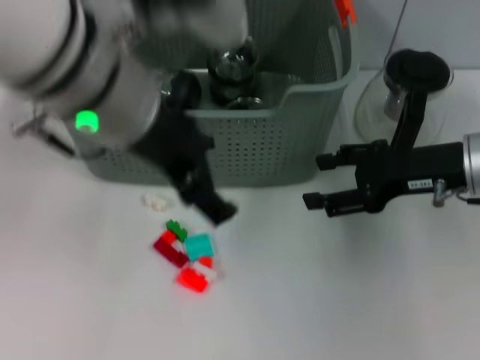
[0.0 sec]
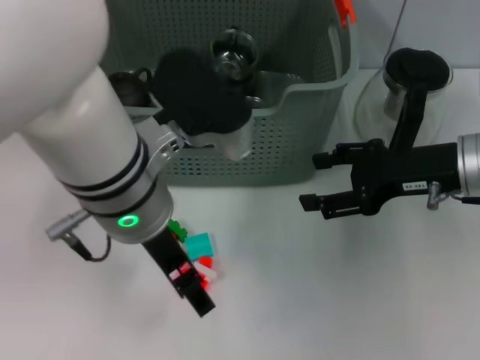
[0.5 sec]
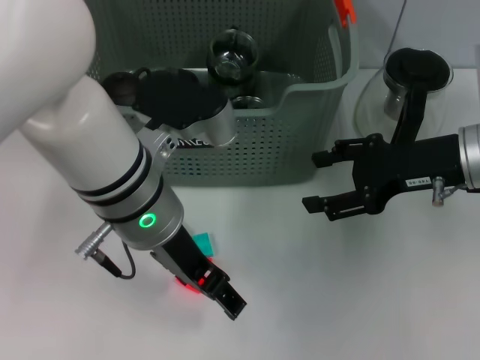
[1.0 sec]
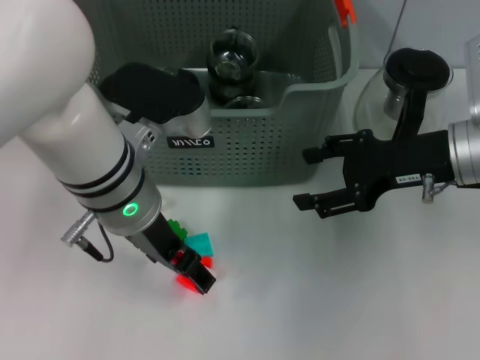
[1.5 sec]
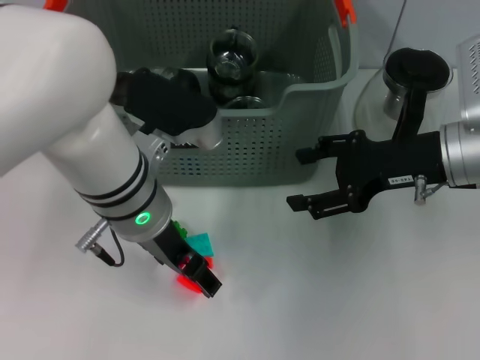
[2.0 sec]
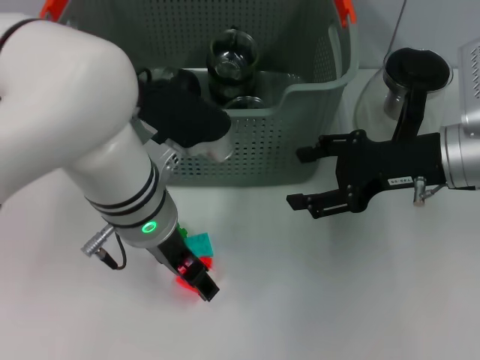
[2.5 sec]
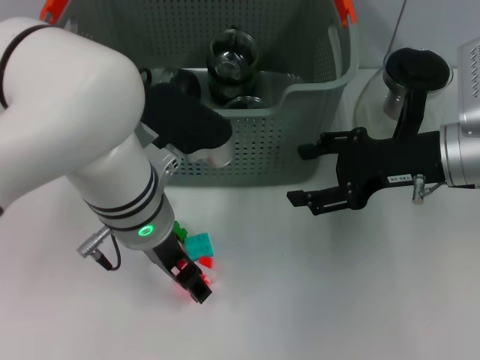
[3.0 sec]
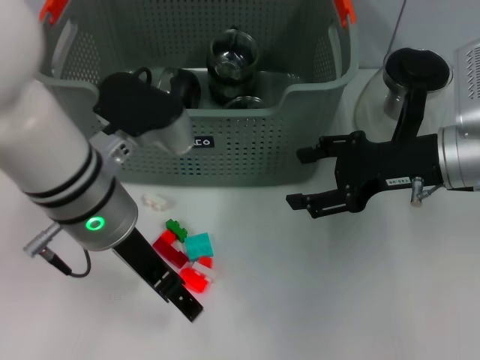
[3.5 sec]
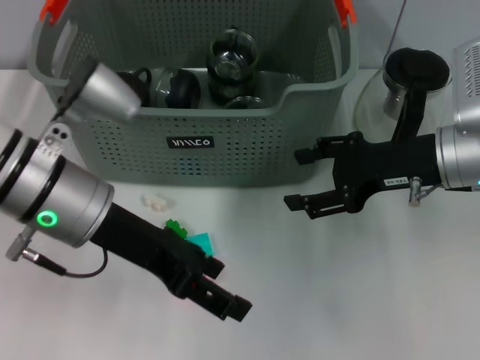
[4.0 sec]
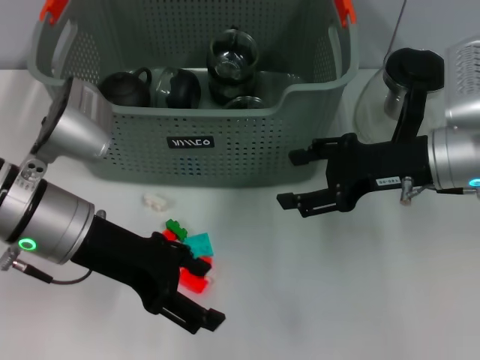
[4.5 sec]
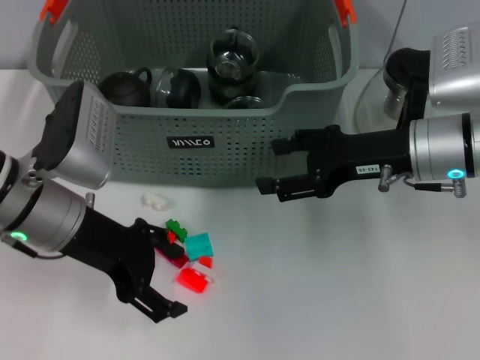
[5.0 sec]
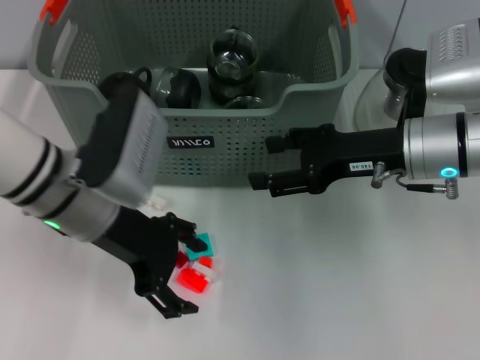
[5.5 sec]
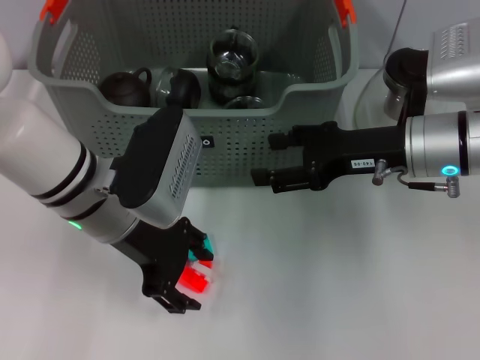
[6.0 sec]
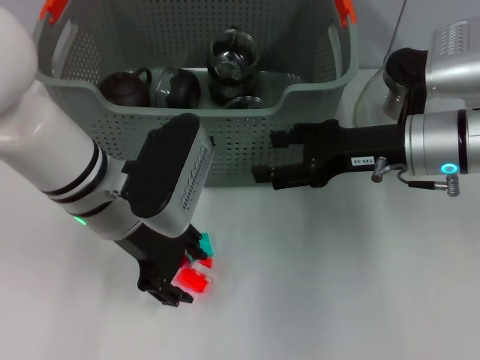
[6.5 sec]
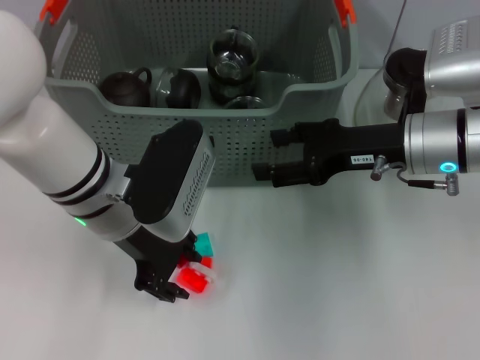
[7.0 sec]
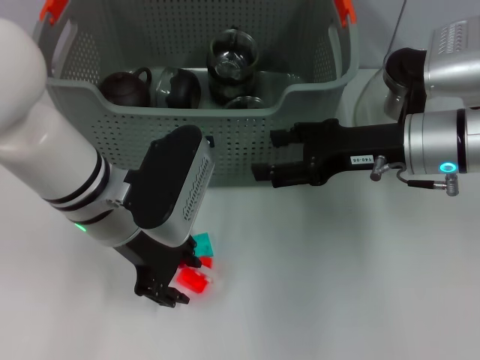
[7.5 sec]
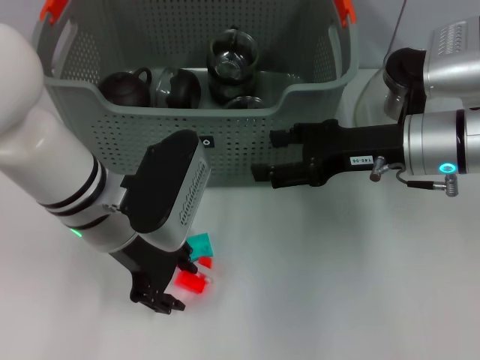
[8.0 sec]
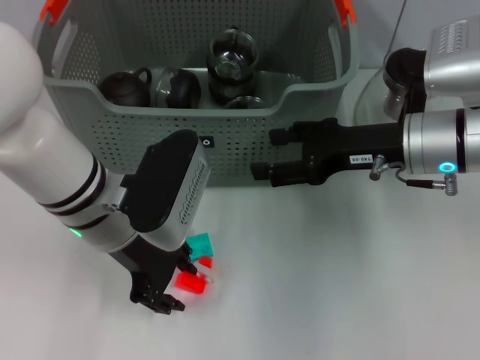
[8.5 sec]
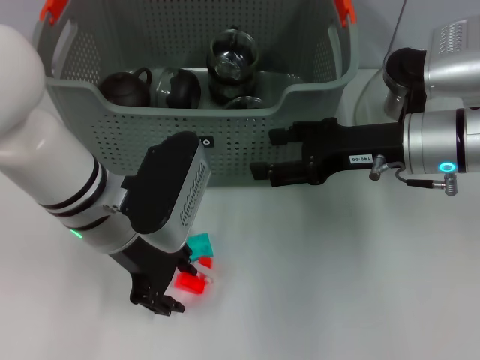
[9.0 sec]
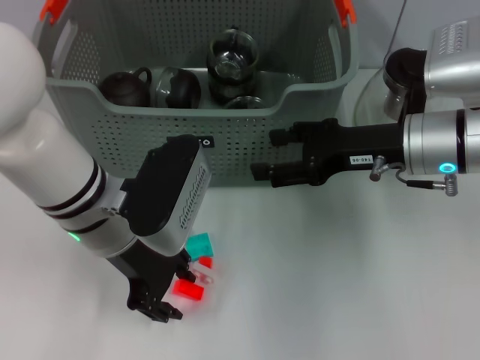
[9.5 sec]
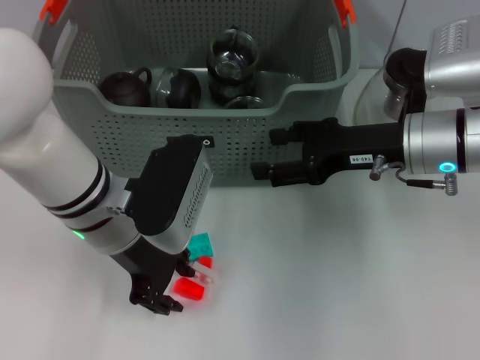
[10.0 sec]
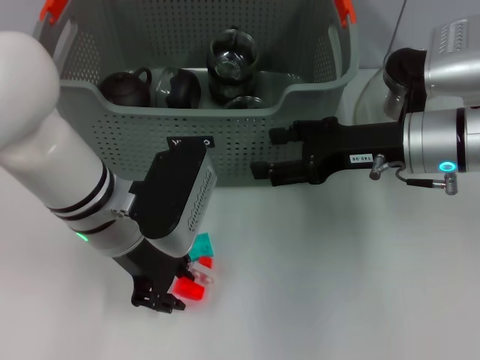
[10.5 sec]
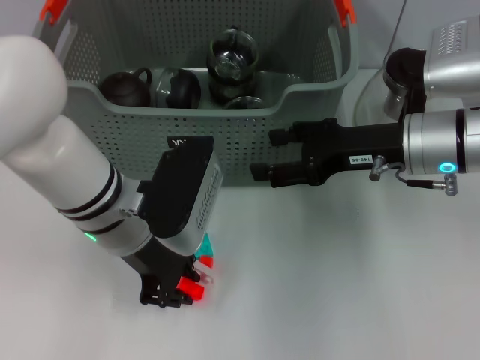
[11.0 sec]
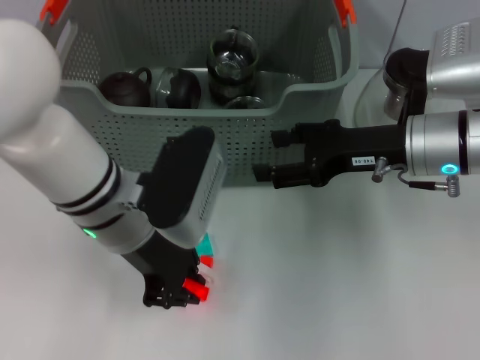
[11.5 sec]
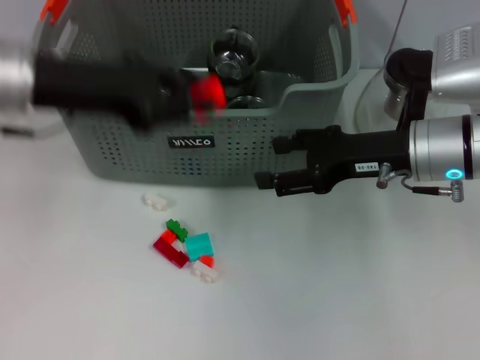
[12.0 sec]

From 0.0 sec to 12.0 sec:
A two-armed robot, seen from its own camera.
Task of the whole recording: pick up the teacup on the table and place it into the storage bin, pick up the block on the table and place it into the storage bin.
Step, from 0.0 sec to 11.0 sec: Grasp the orange block with left gripper.
From 0.0 sec to 2.0 sec: The left gripper goes some 15 cm downward.
From 2.0 sec to 4.0 sec: The left gripper is displaced to the left by about 5 cm.
From 6.0 sec to 8.0 sec: The left gripper closes its fingers.
From 8.0 sec to 10.0 sec: The two grippers keep their place.
From 10.0 sec to 12.0 sec: The left gripper shifts approximately 15 cm upward and to the left.

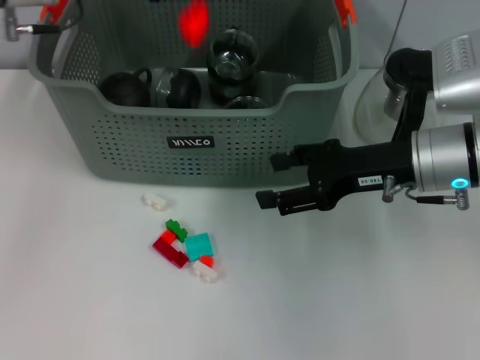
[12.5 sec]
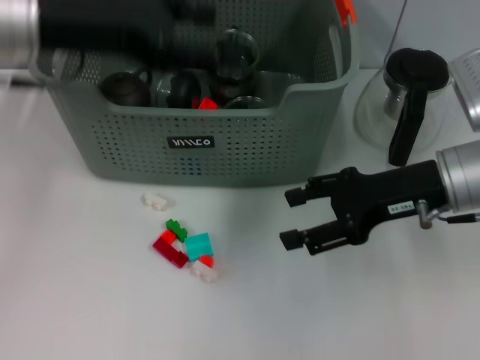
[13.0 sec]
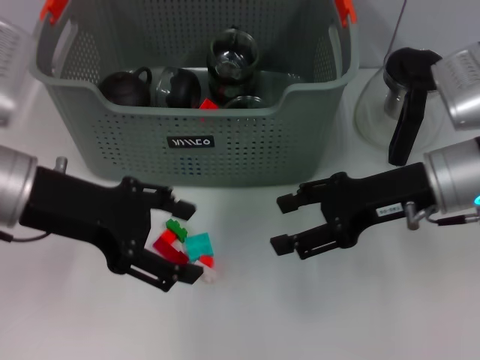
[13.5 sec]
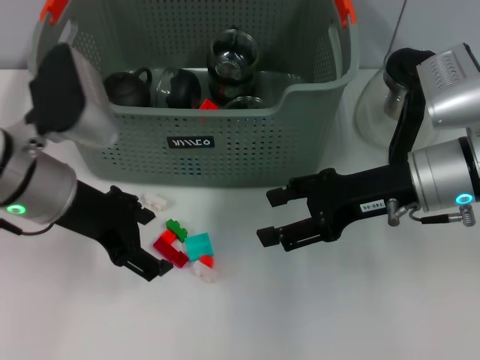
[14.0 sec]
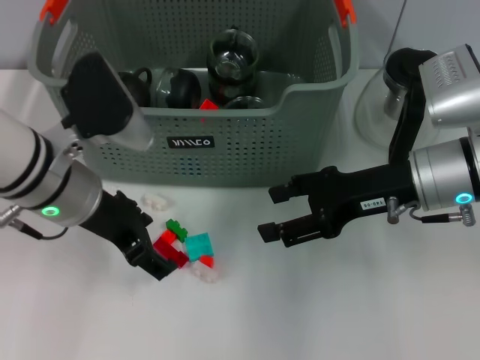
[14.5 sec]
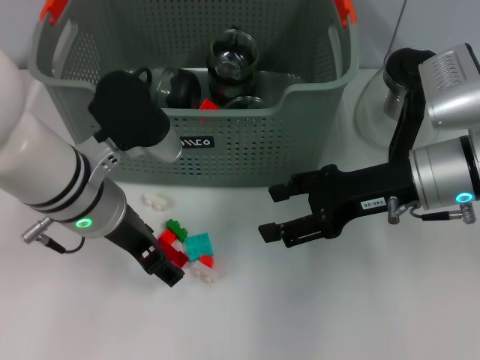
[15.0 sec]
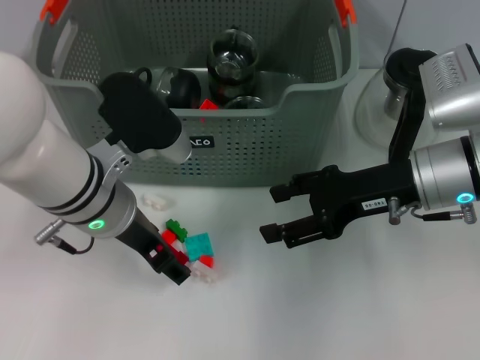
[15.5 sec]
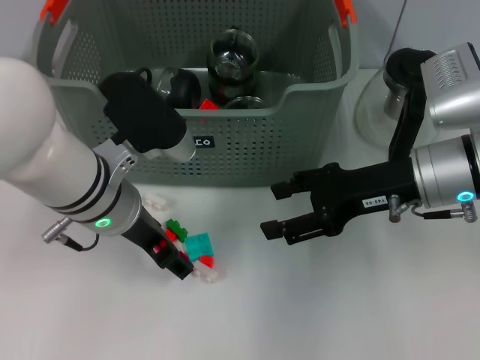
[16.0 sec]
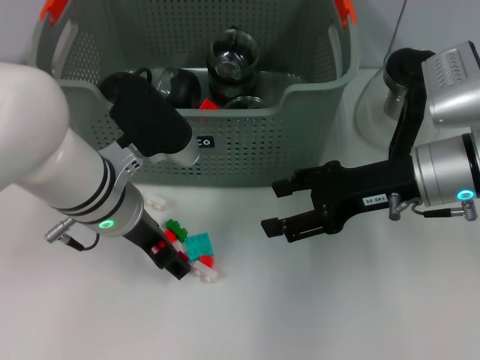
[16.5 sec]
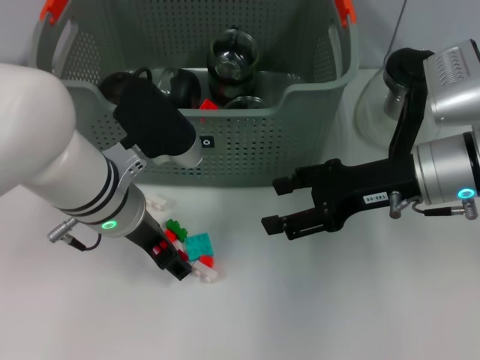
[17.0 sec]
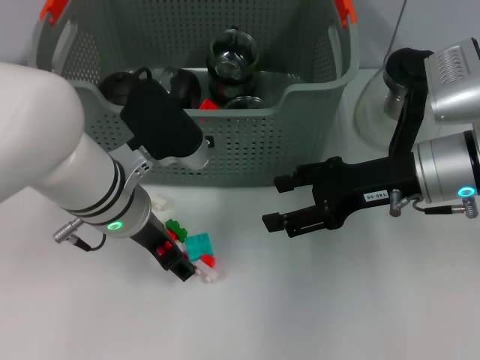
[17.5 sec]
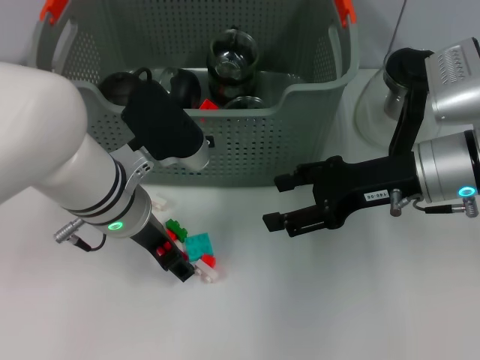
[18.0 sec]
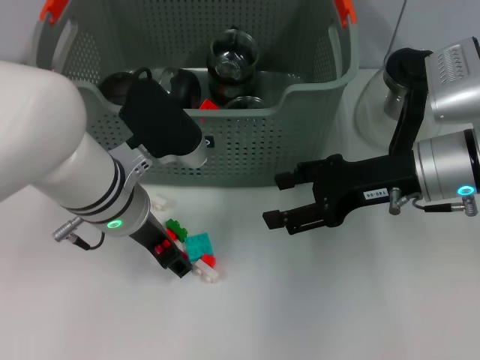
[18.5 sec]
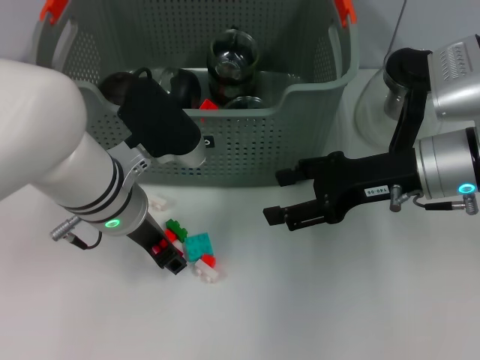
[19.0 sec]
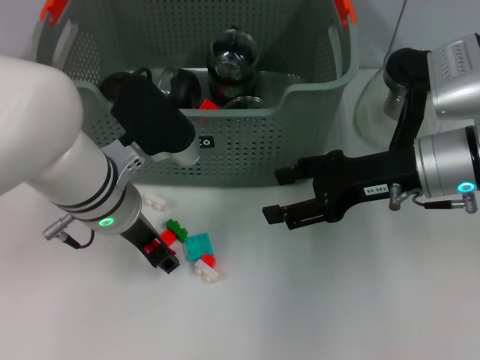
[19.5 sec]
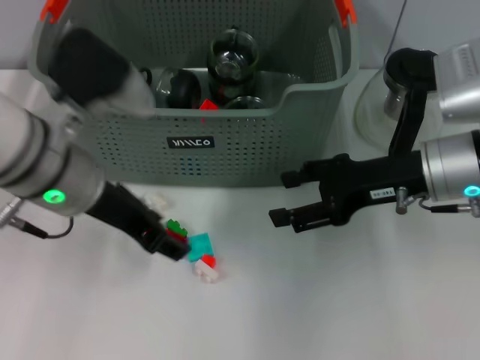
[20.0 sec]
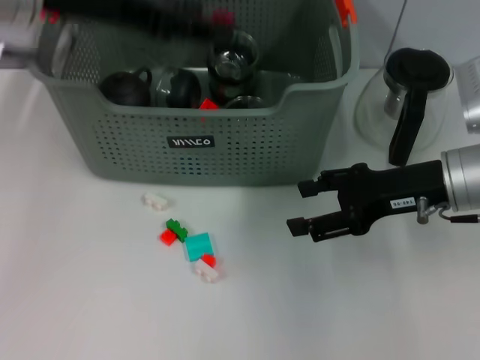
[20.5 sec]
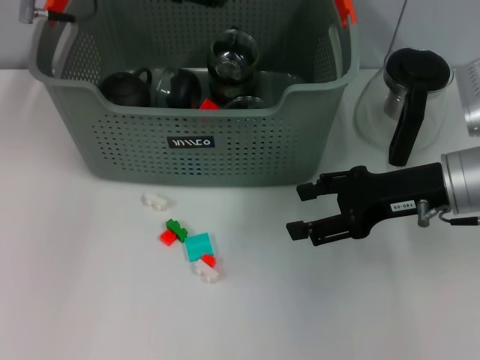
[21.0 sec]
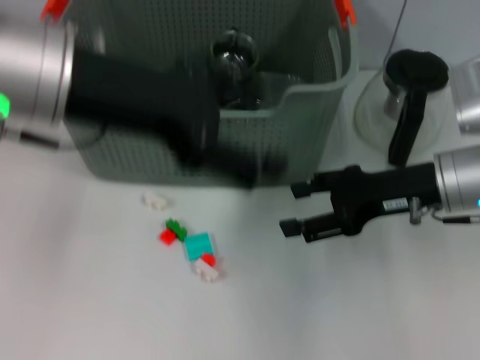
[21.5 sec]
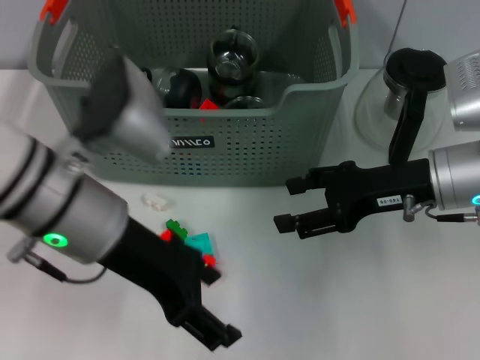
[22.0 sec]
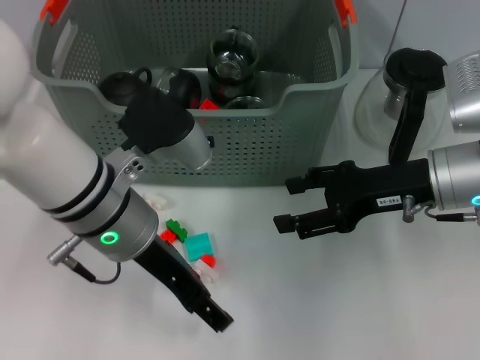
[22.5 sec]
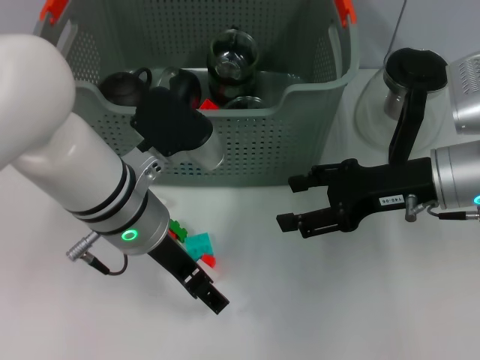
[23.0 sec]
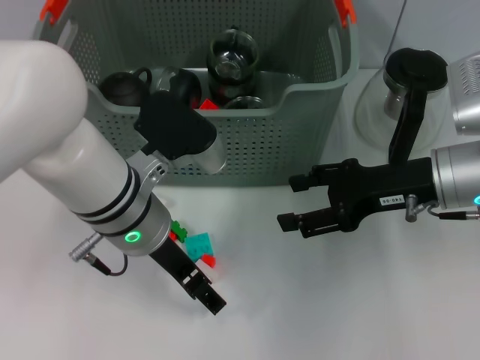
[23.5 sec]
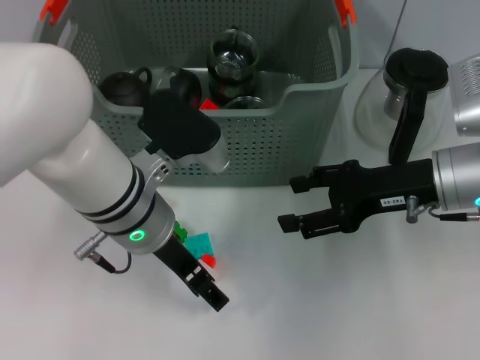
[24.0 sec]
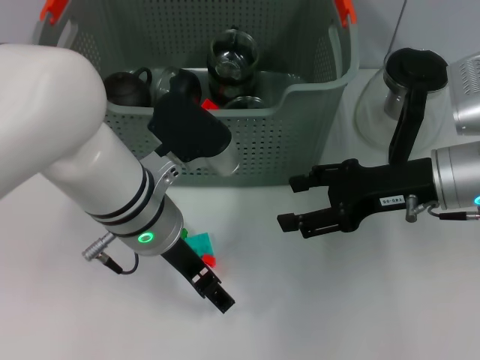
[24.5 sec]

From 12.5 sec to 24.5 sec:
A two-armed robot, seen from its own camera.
Task of the whole recording: pick up the teacup on the table and place it into the storage bin, pick up the block on the table and place it into the storage bin.
Step, from 13.0 sec to 18.5 sec: Grasp the red block with left gripper.
Step, from 19.5 sec to 21.0 sec: Place the red block in the storage box with left gripper.
From 12.5 sec to 14.5 sec: The left gripper heads backward and downward, covering some 15 cm, and opens its fingers.
From 14.5 sec to 16.5 sec: The grippers move only a little.
From 16.5 sec to 18.5 sec: Neither gripper changes place.
From 18.5 sec to 20.5 sec: The left gripper goes approximately 20 cm upward and to the left.
From 20.5 sec to 22.5 sec: The left gripper shifts about 15 cm downward, to the right and backward.
From 22.5 sec to 24.5 sec: The grippers move only a little.

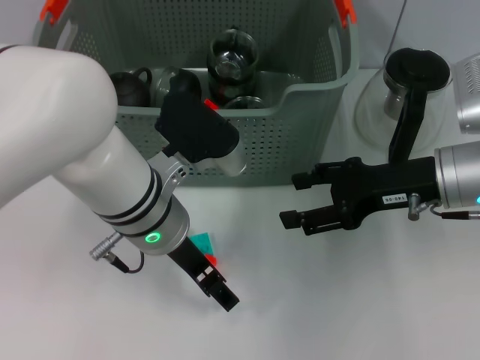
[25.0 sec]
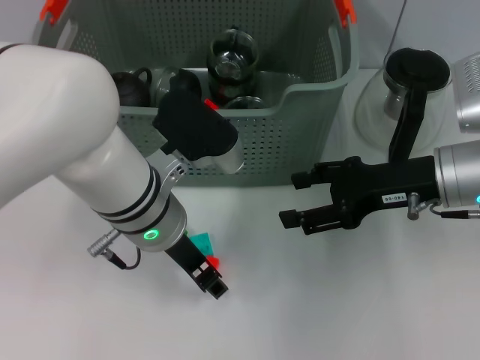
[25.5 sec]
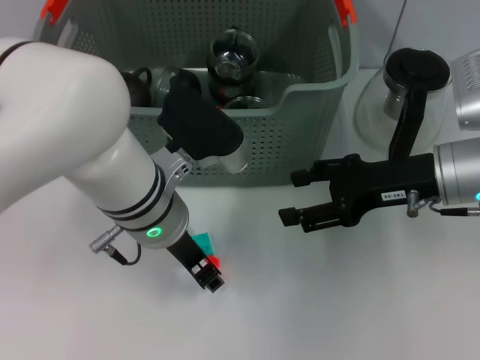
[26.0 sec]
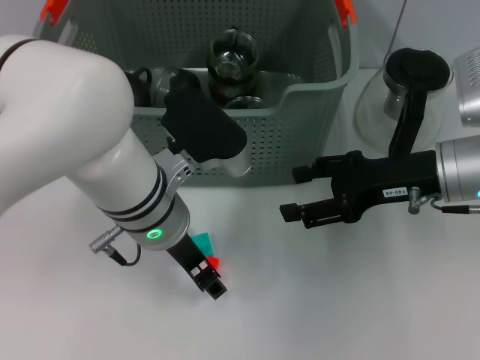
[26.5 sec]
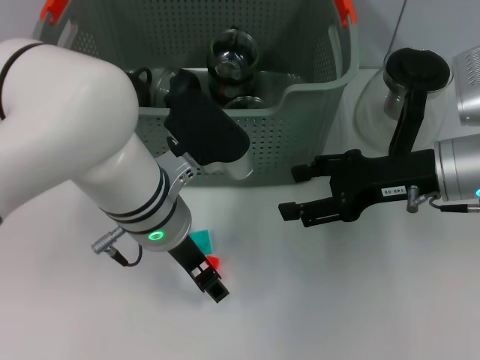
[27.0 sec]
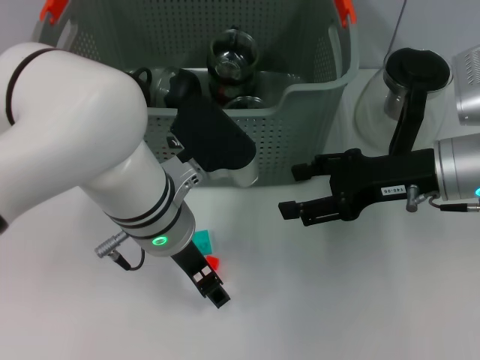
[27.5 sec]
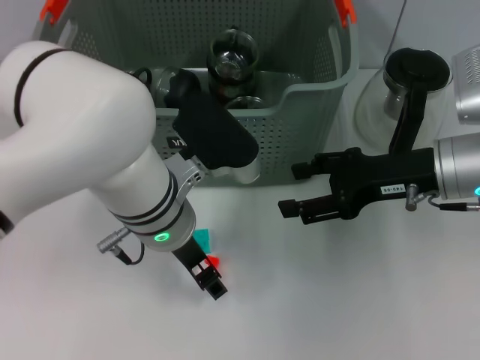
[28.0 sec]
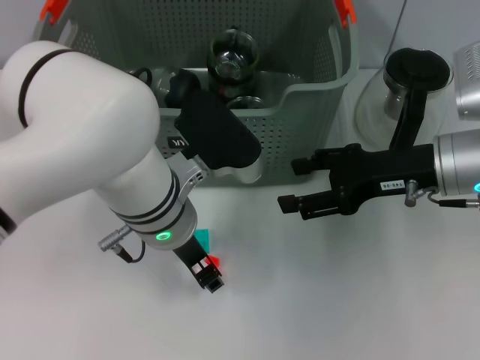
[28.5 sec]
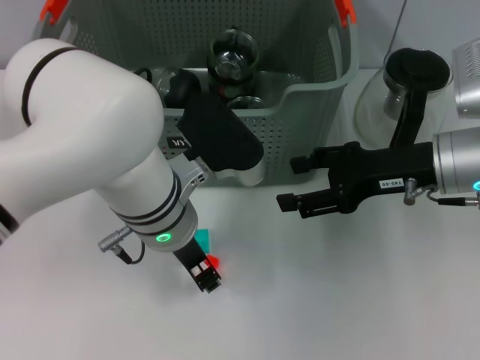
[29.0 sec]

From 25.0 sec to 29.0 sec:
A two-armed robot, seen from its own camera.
Task of the whole recording: pick up the teacup on the table and place it into the storage bin, pick up the block on the table and place it into the storage bin.
From 25.0 sec to 27.0 sec: There are only small adjustments of the grippers.
From 27.0 sec to 29.0 sec: The left gripper closes.
